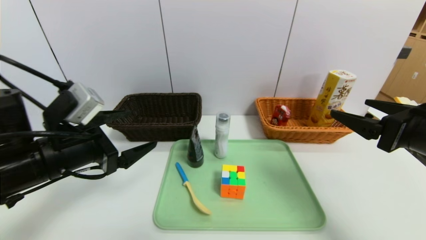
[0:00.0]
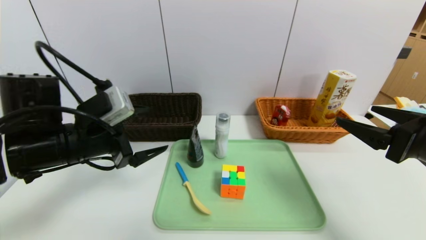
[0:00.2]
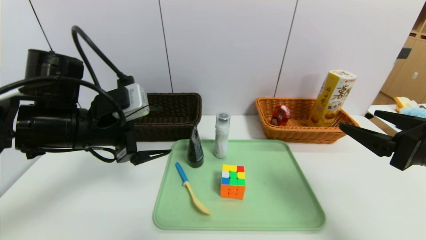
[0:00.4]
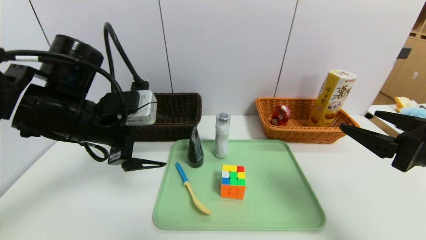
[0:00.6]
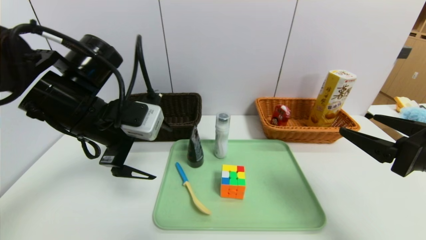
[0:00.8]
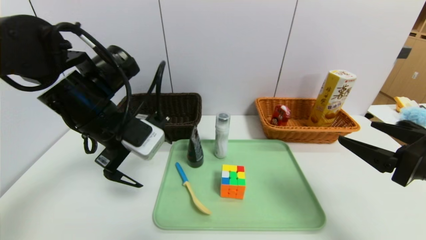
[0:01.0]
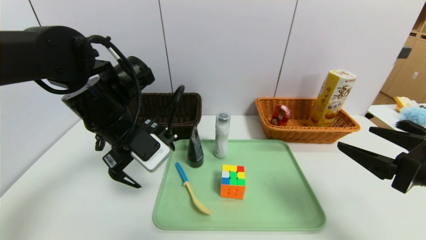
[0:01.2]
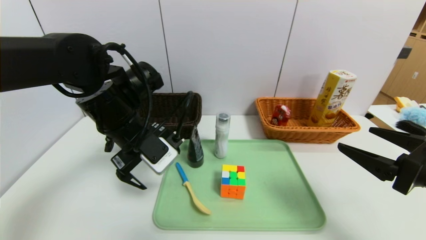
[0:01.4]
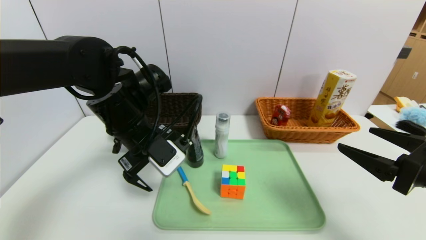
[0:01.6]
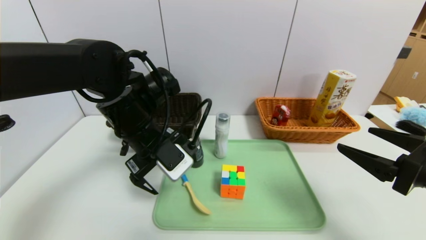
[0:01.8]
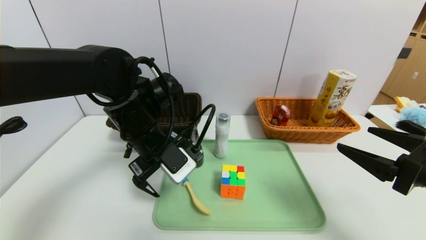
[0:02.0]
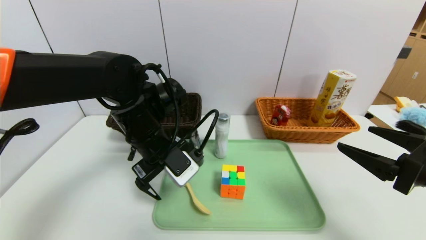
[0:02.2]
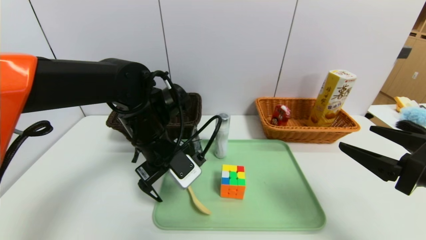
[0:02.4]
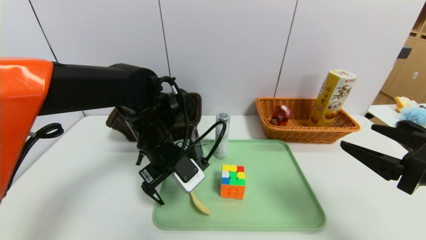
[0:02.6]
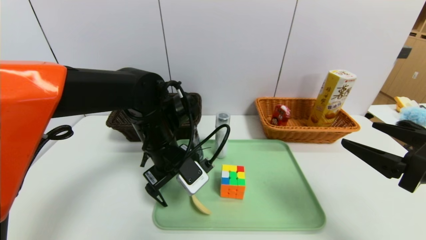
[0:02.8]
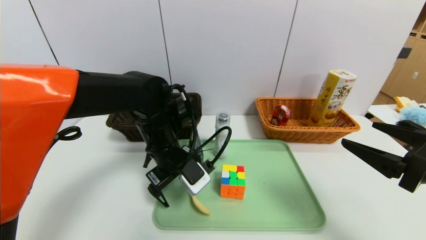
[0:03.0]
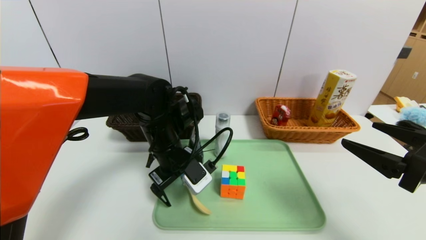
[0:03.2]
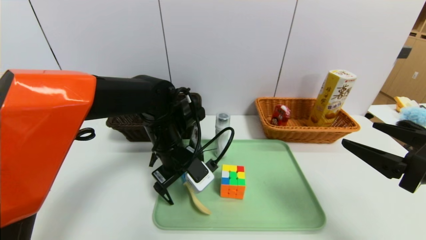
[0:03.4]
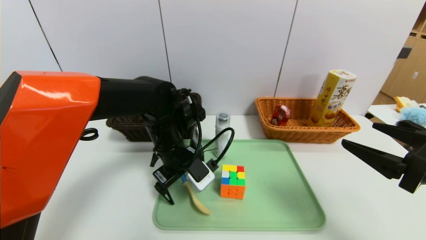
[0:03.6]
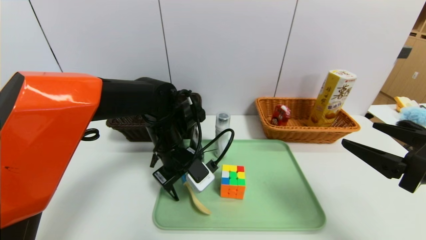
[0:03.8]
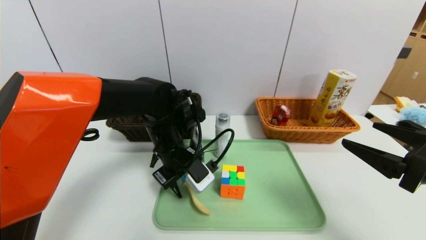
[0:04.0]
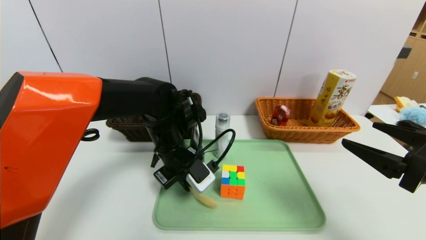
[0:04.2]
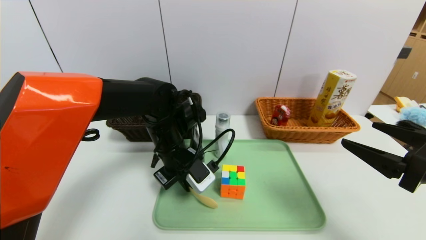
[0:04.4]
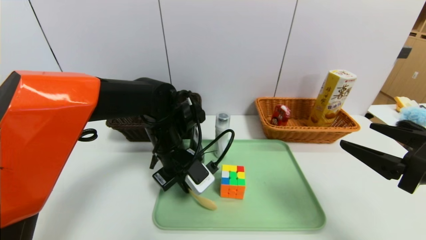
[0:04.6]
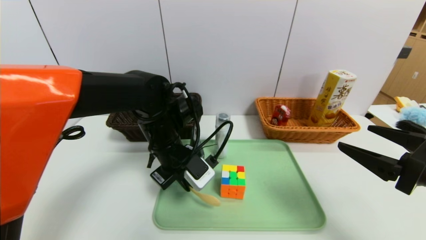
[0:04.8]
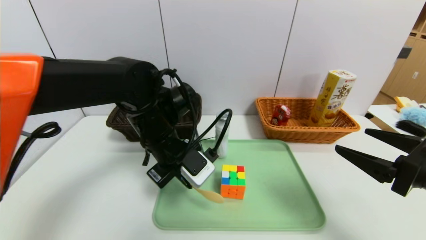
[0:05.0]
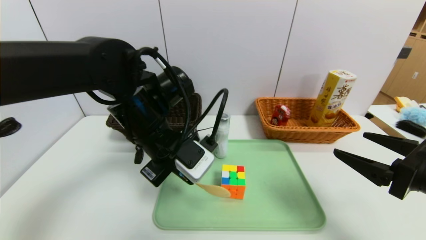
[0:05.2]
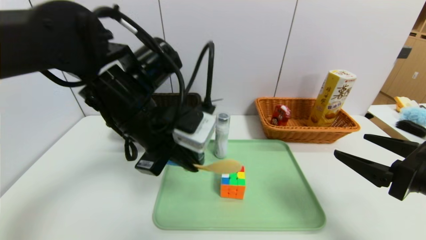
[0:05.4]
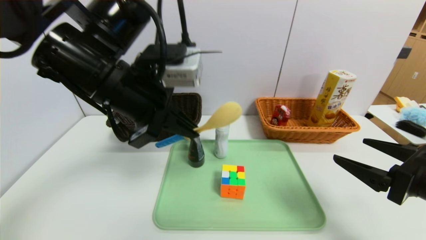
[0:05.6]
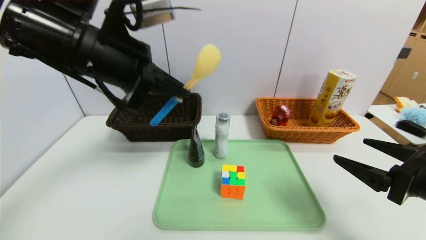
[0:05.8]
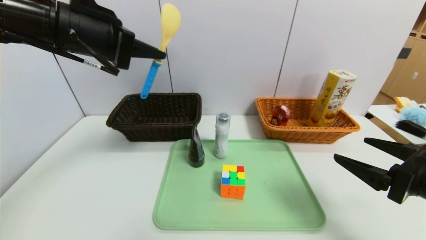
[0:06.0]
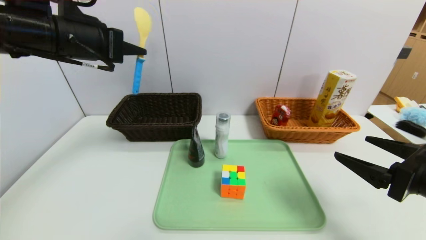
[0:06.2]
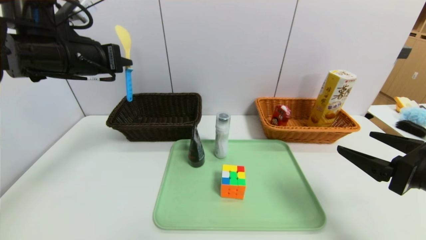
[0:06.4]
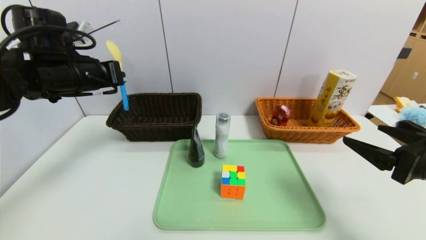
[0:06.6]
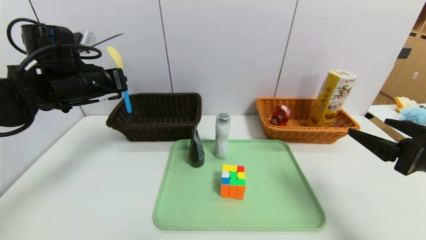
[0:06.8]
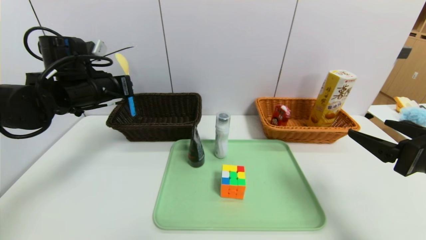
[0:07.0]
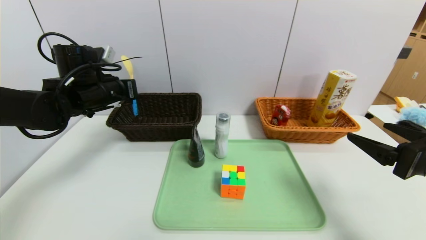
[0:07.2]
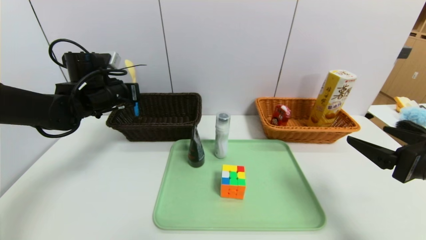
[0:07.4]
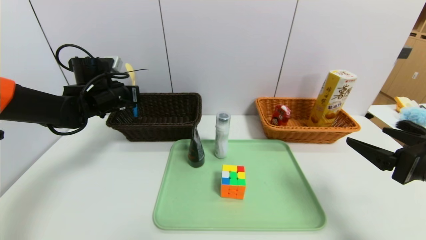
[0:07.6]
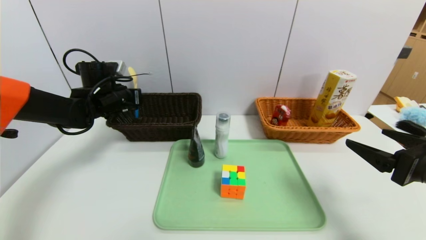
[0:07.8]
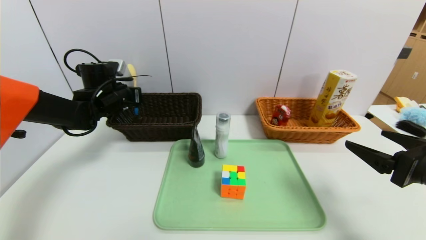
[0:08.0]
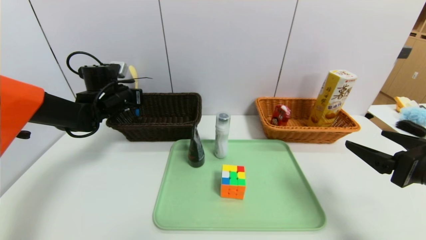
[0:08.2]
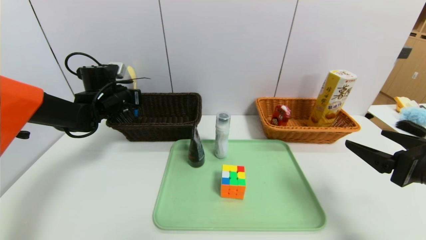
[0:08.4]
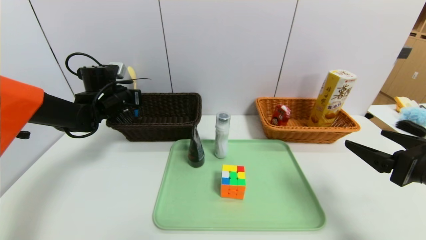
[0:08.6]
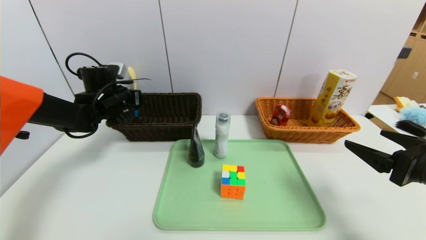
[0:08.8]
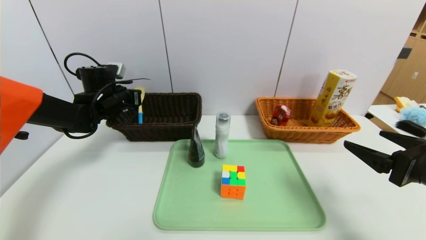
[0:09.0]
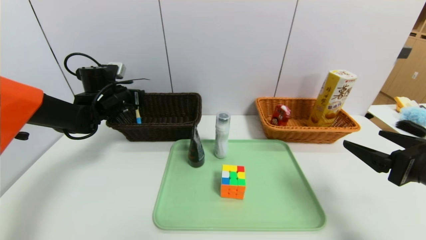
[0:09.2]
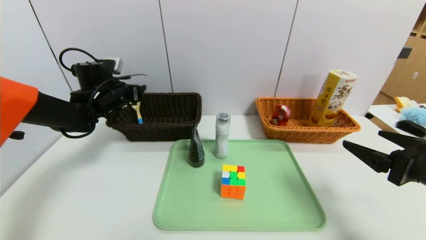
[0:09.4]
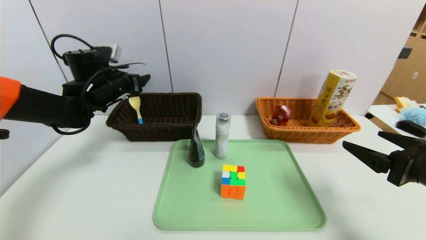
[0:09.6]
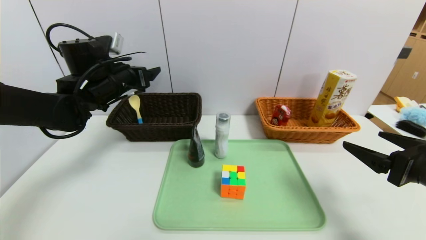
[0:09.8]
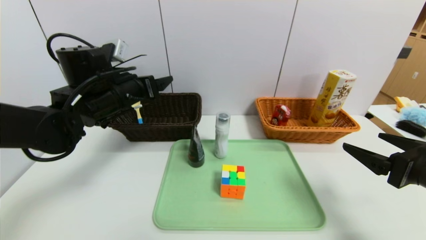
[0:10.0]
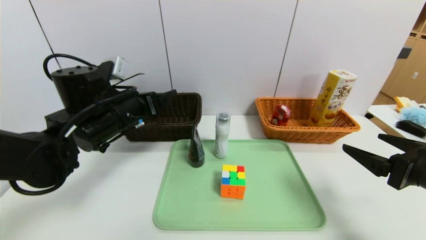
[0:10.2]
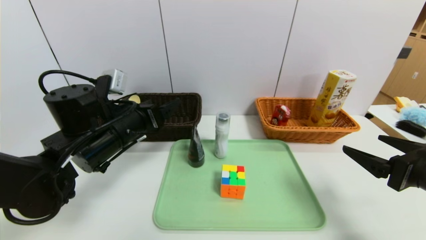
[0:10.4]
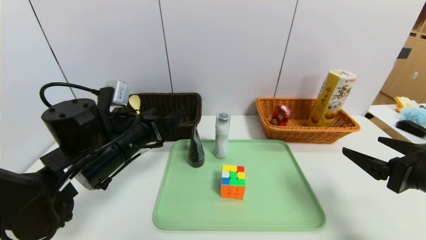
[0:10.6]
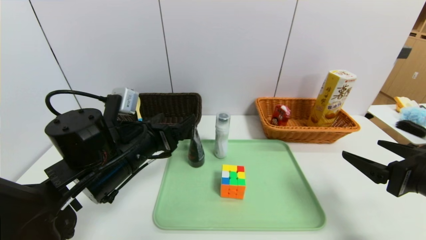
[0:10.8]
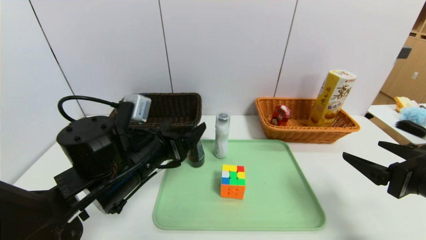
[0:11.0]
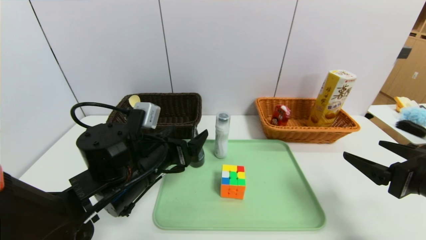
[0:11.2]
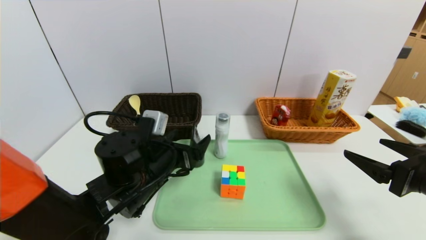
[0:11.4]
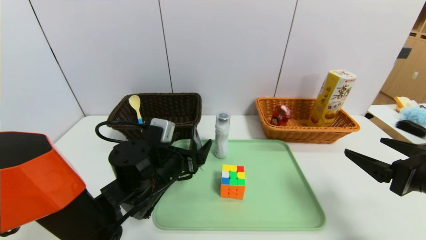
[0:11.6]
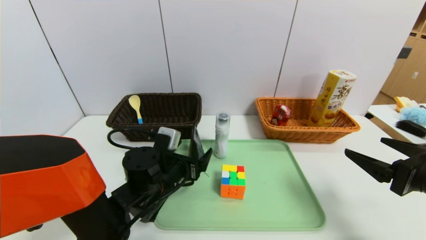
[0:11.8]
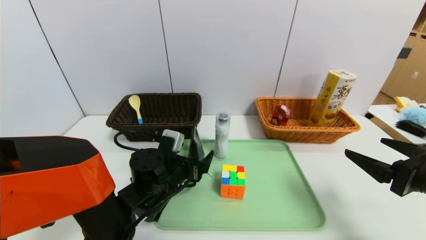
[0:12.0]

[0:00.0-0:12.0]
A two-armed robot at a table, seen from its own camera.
Task of the whole recording: place the food in the right basket with the right gripper, and place the non food items in the left basket with the left gripper.
Step, 0:00.0 to 0:09.4: Grasp the spoon and put it in the left basket.
0:00.0 to 0:01.6: The left gripper is displaced to the right and forward by about 10 cm.
0:01.6 to 0:03.0: The left gripper shifts approximately 5 cm downward.
0:03.0 to 0:04.4: The left gripper closes.
0:04.4 to 0:06.0: The left gripper moves upward and to the left, roughly 25 cm.
0:06.0 to 0:07.6: The left gripper goes about 20 cm downward and forward.
0:07.6 to 0:09.0: The grippers move only a little.
0:09.0 to 0:10.4: The left gripper moves backward and to the right, about 20 cm, and opens up.
0:10.4 to 0:12.0: The left gripper shifts approximately 15 cm downward and to the right.

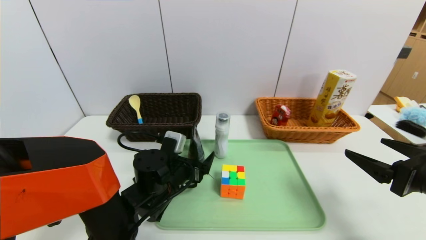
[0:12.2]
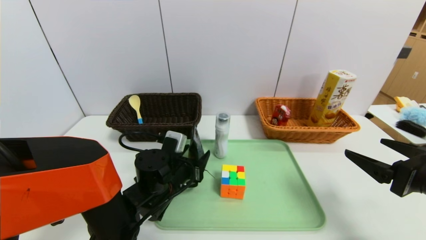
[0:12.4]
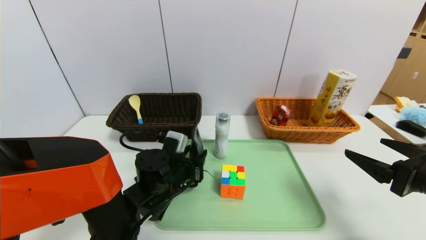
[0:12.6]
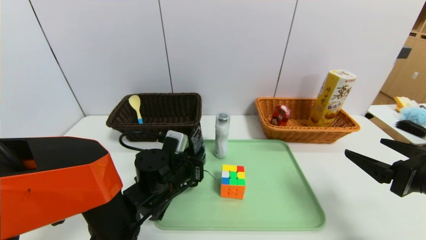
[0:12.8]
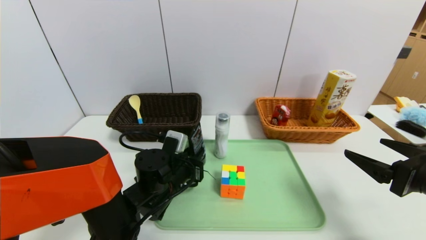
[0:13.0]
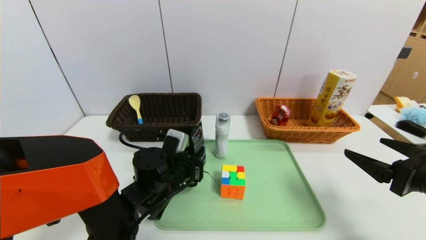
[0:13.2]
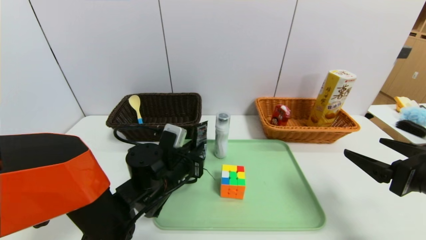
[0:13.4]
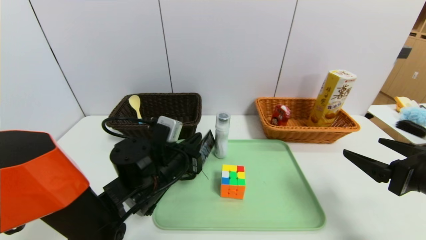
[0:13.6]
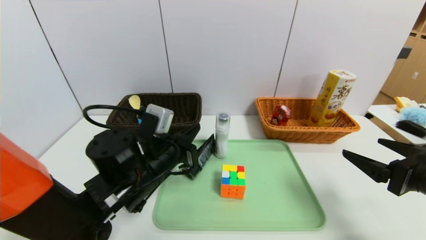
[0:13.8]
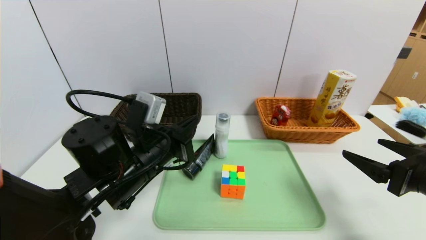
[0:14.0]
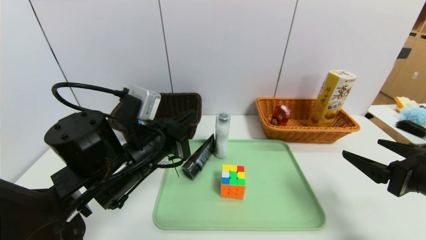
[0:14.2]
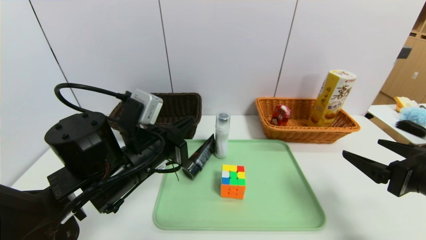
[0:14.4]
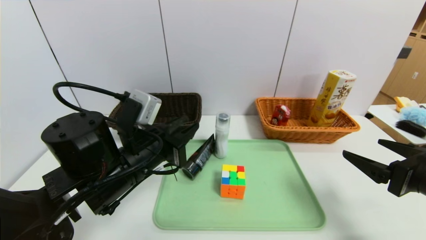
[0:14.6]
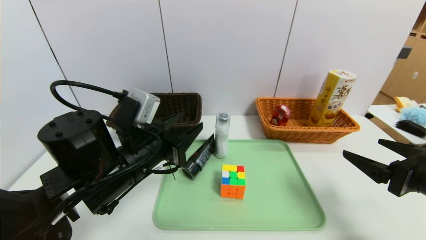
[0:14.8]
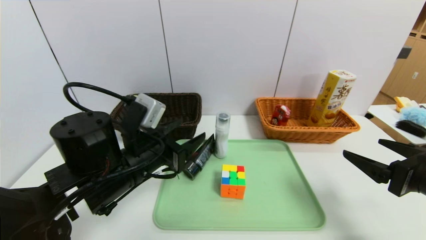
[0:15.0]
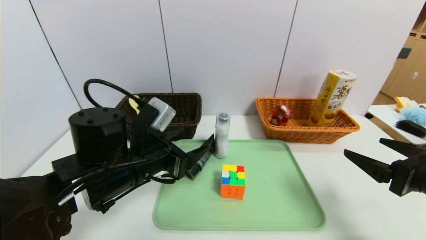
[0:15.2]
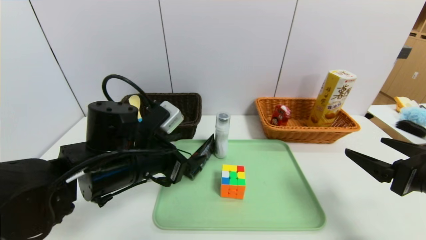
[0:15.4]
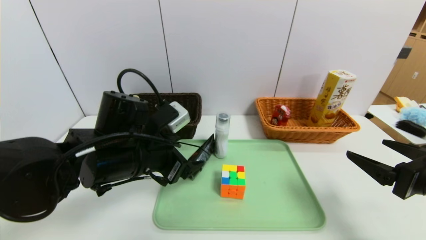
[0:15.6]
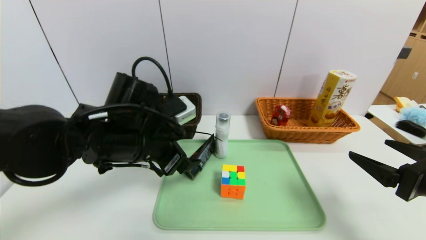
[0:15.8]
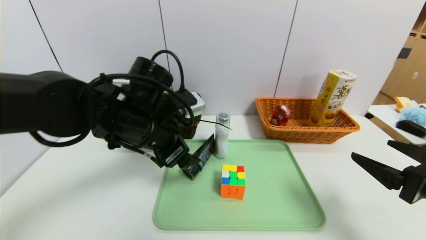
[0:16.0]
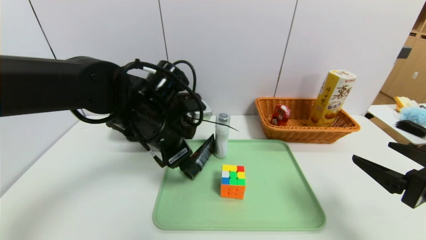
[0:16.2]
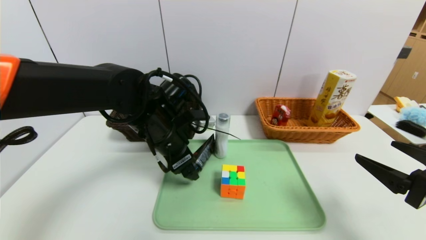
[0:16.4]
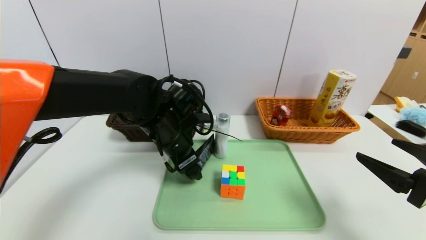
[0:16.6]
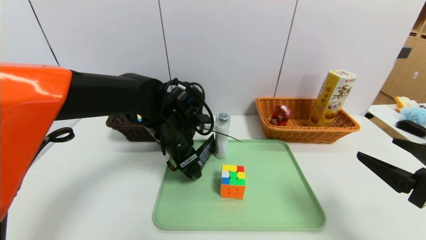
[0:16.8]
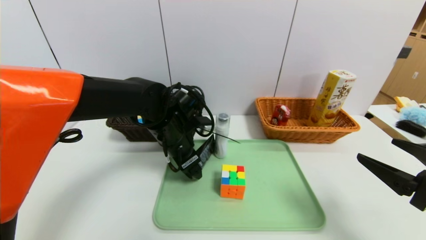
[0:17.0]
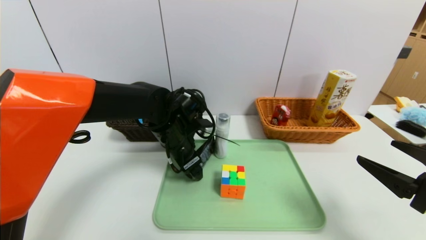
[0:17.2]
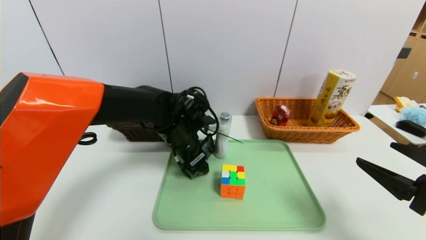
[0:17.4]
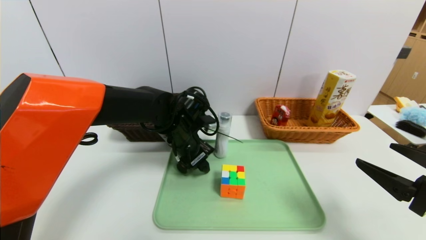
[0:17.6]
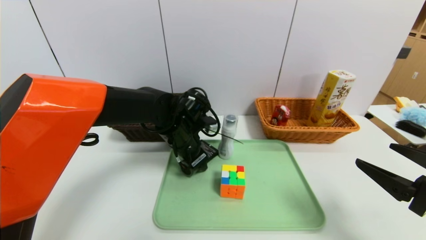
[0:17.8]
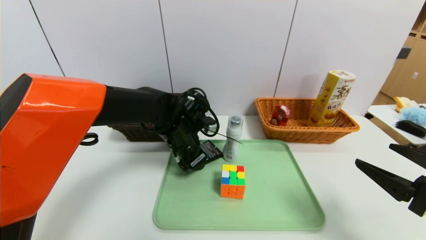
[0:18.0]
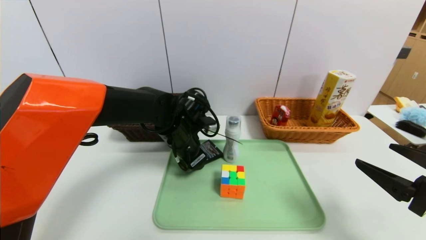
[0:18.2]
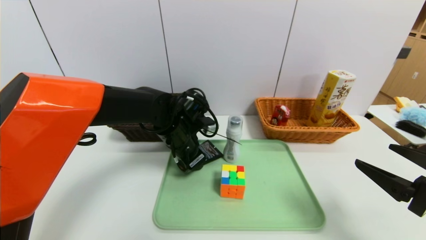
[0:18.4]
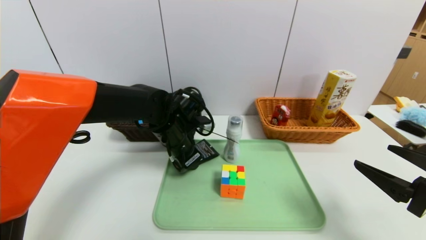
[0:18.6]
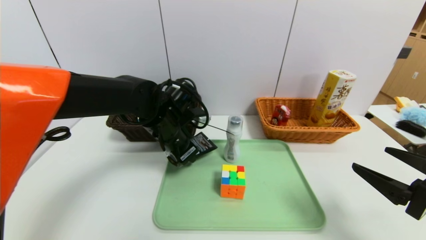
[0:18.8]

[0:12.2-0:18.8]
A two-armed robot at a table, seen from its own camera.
Task of the whole recording: place the food in the right basket with the right gripper, and place the non food items in the left basket with the left gripper.
0:12.2 to 0:13.8: The left gripper travels upward by about 10 cm, and closes its fingers.
0:13.8 to 0:15.4: The left gripper opens its fingers.
0:15.4 to 0:17.2: The left gripper goes some 10 cm forward and to the right.
0:17.2 to 0:18.8: The left gripper closes.
